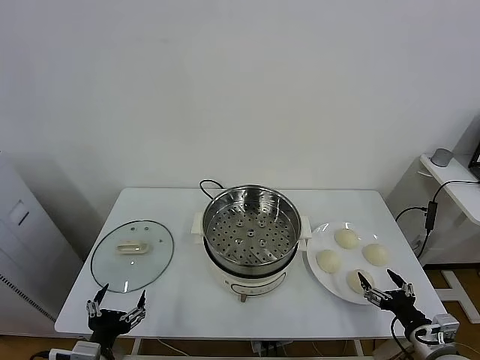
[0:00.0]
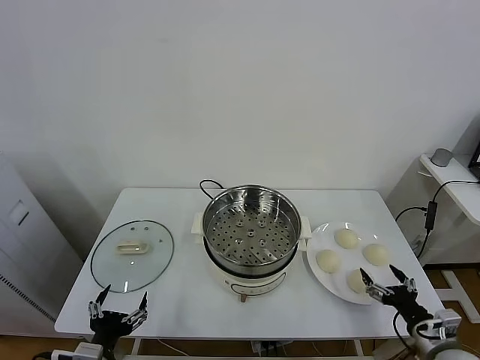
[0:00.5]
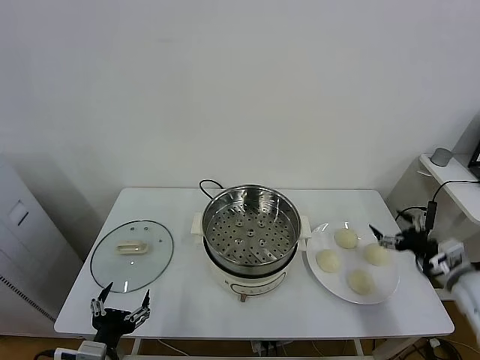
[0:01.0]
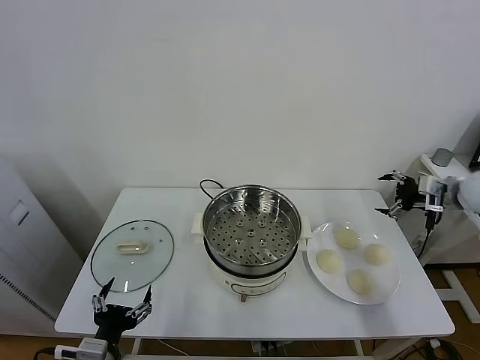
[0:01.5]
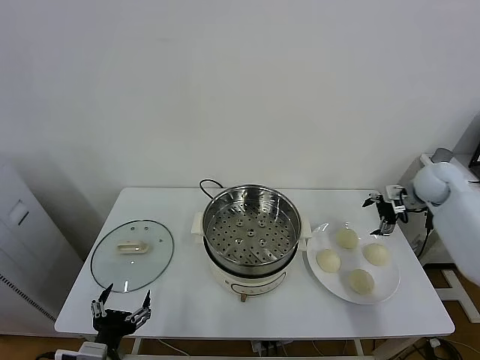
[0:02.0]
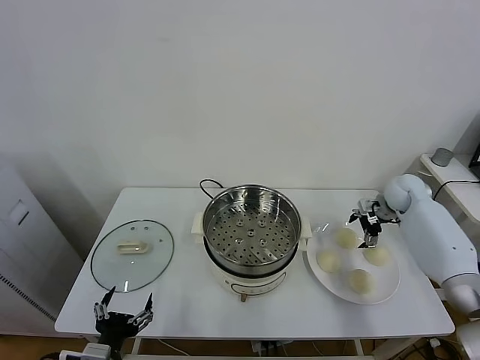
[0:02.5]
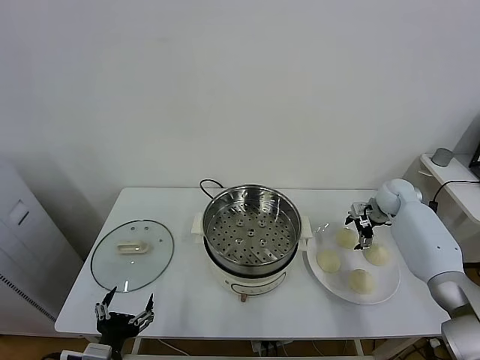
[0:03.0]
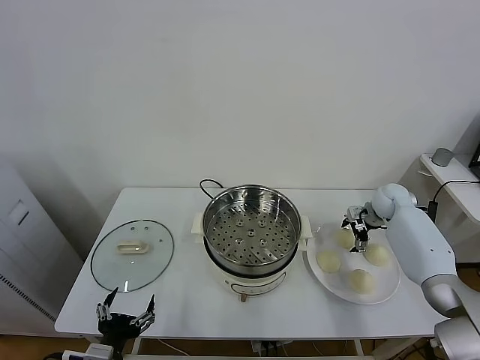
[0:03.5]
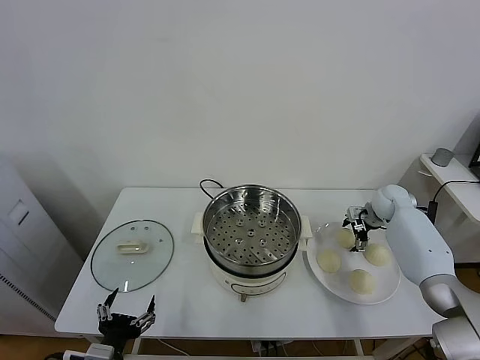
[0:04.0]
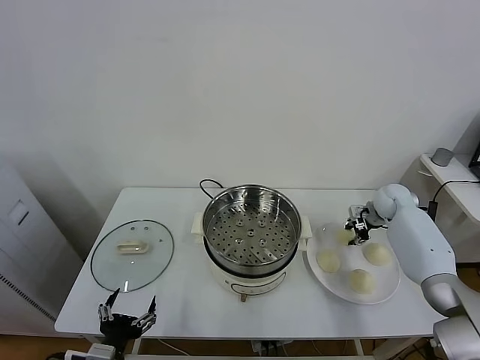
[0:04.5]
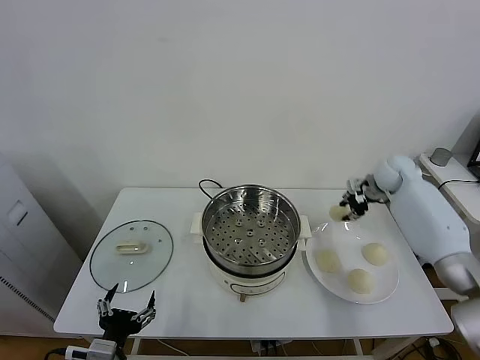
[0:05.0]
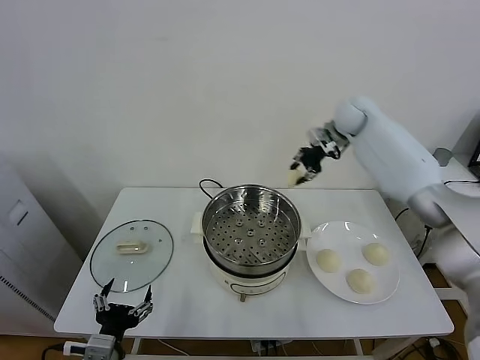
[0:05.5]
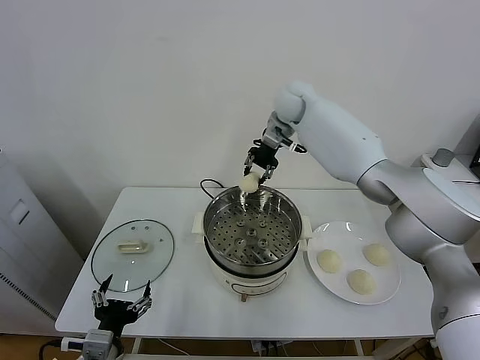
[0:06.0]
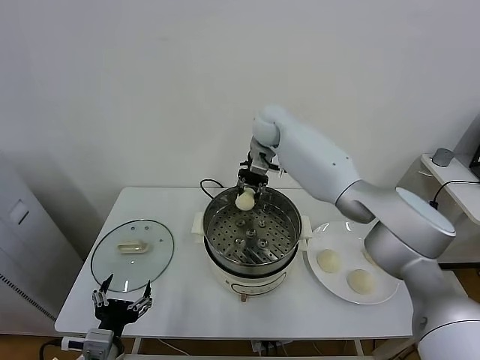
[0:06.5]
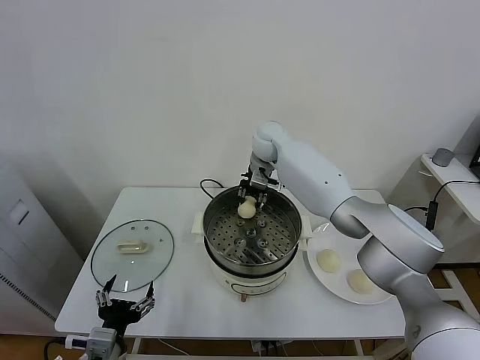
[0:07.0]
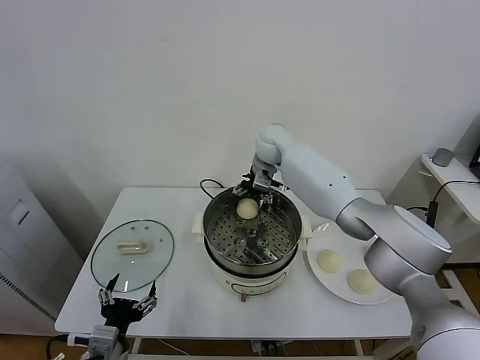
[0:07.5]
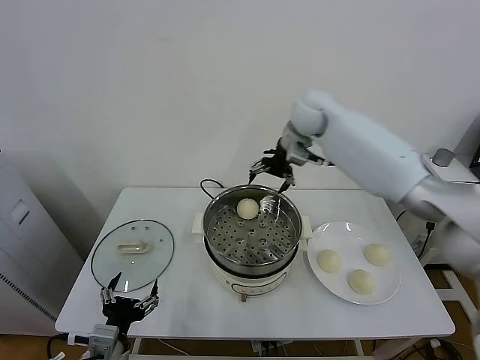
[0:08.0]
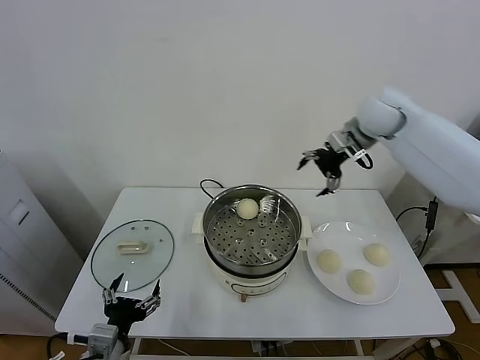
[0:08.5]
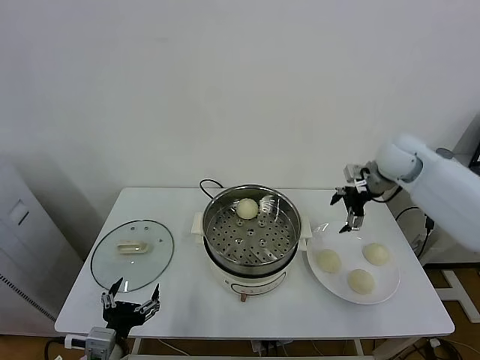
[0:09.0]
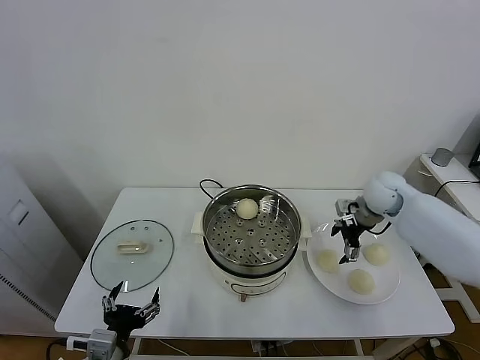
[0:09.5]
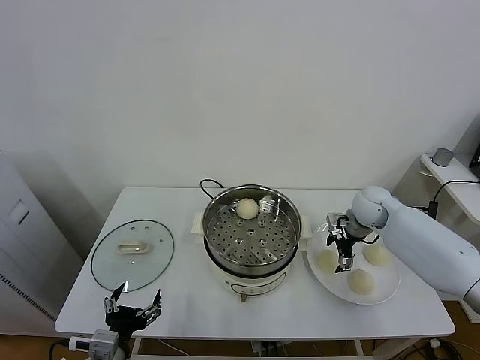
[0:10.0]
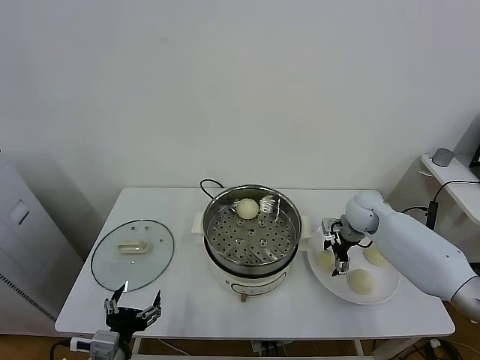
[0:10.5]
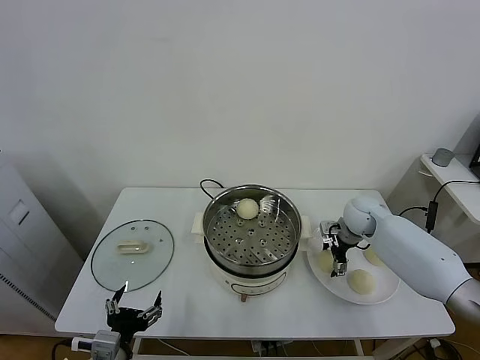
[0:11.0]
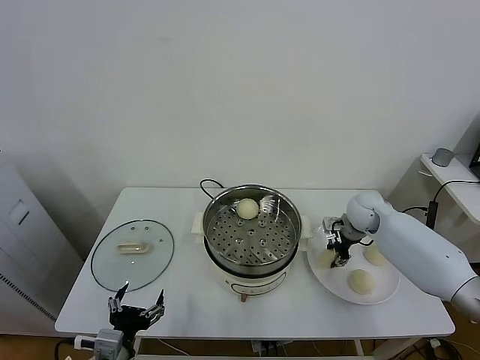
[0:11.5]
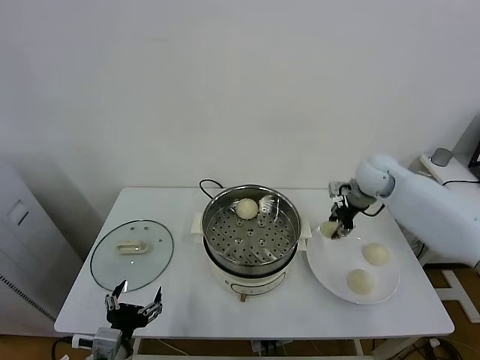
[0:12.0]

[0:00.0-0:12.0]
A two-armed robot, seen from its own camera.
Task of the whole recording: take steamed baozi put them in steamer.
Step, 0.0 to 4.5 s: Grasp the baozi in the plate with right gripper.
Step, 5.0 to 7.5 s: Place the baozi on the steamer with right gripper.
Step, 8.0 to 11.0 s: Grasp the baozi in the plate with right gripper.
2.0 to 4.0 s: The right gripper shifts about 10 cm downward.
4.0 to 6.0 s: The right gripper moves to the left and upward, some 40 cm, and closes.
6.0 to 8.0 s: The right gripper shifts roughly 10 cm to the right and backward, travels downward and back again, some 10 cm each way, and opens up.
8.0 to 10.0 s: The right gripper travels downward and to the right by roughly 30 cm.
10.0 to 12.0 s: The right gripper is displaced upward by approximately 10 cm, and closes up.

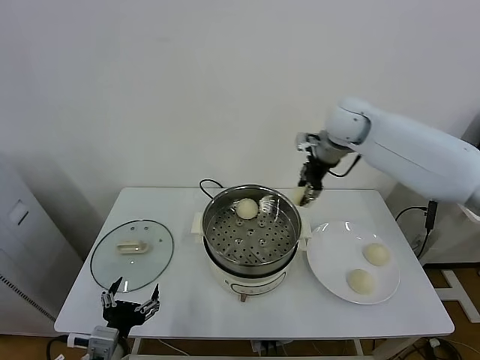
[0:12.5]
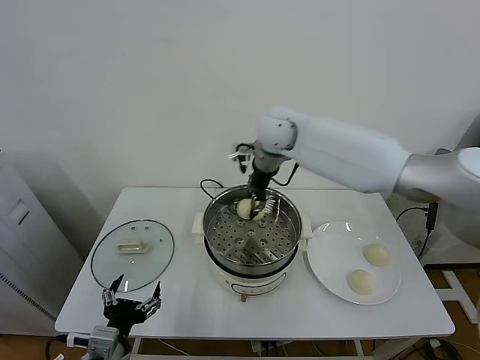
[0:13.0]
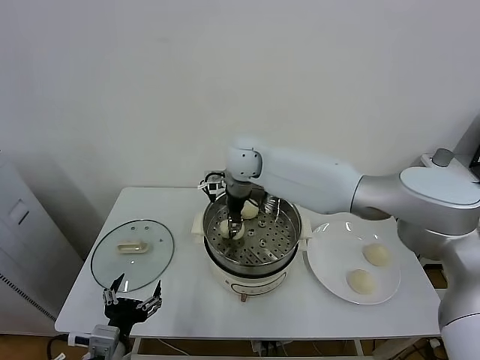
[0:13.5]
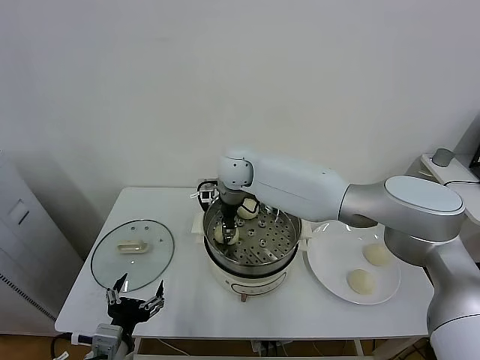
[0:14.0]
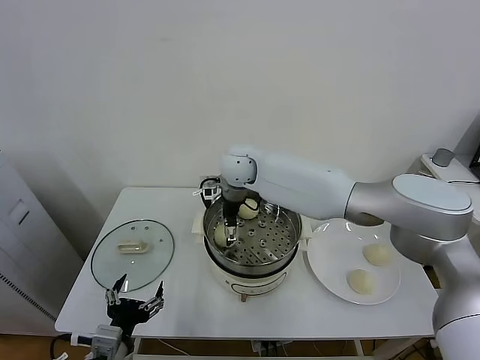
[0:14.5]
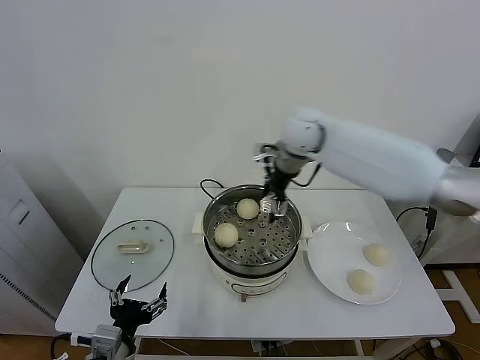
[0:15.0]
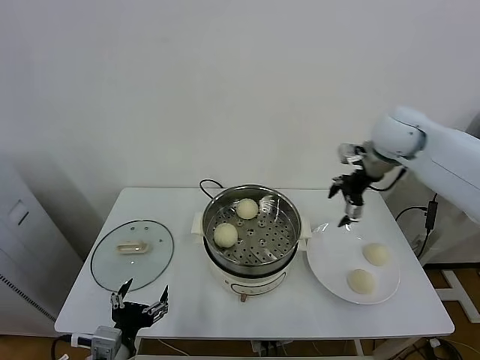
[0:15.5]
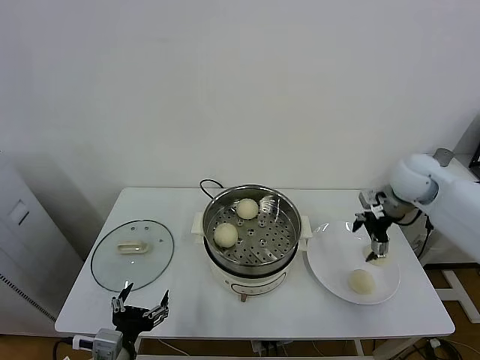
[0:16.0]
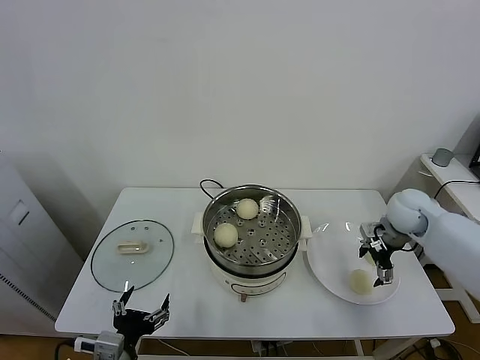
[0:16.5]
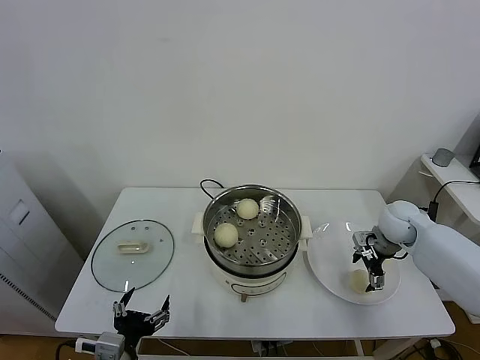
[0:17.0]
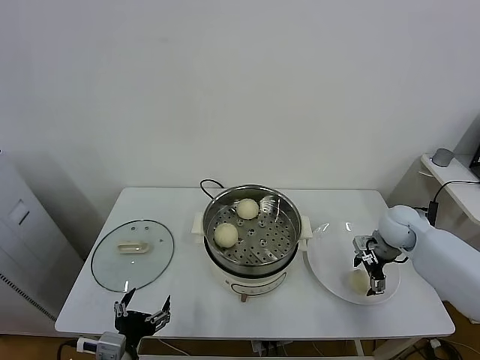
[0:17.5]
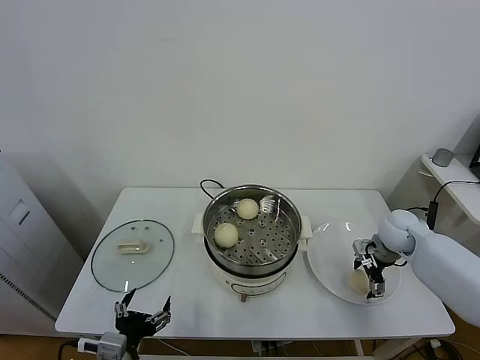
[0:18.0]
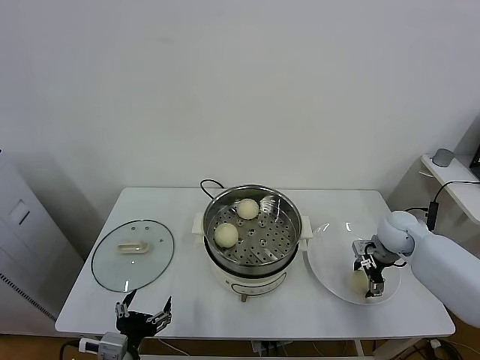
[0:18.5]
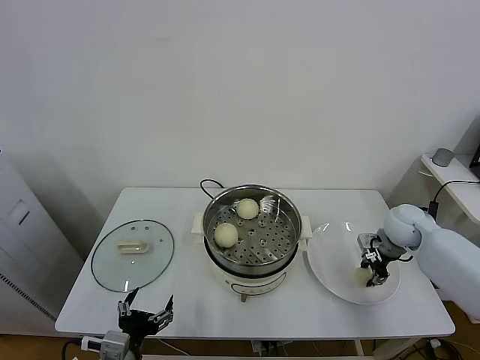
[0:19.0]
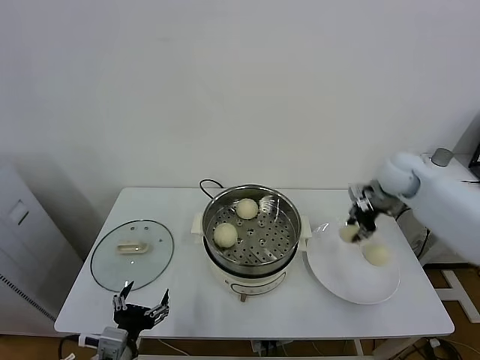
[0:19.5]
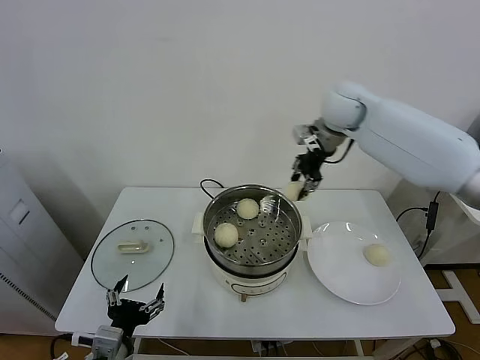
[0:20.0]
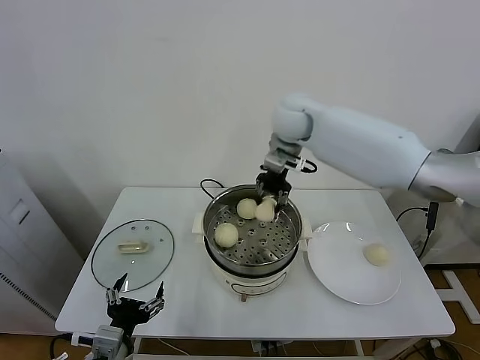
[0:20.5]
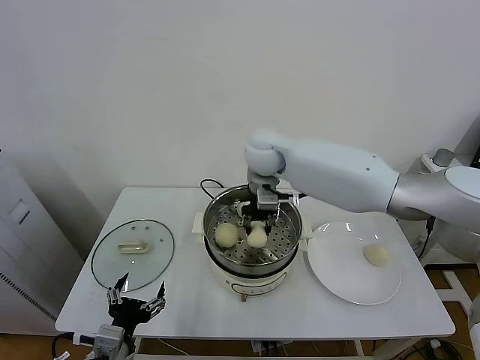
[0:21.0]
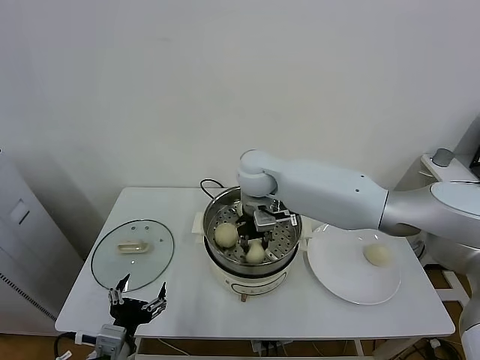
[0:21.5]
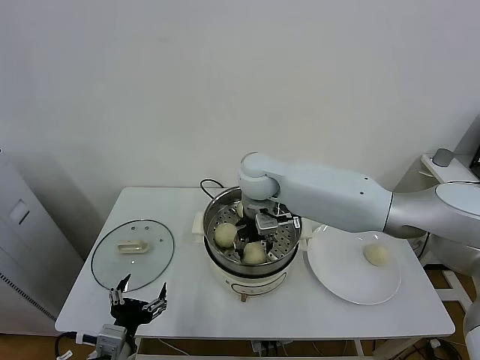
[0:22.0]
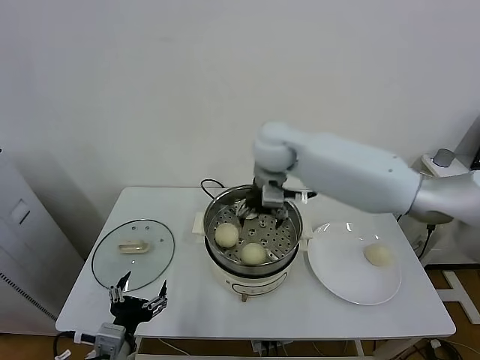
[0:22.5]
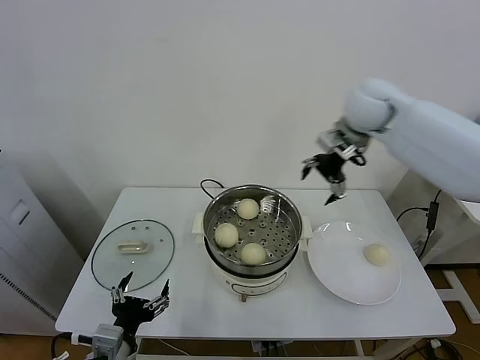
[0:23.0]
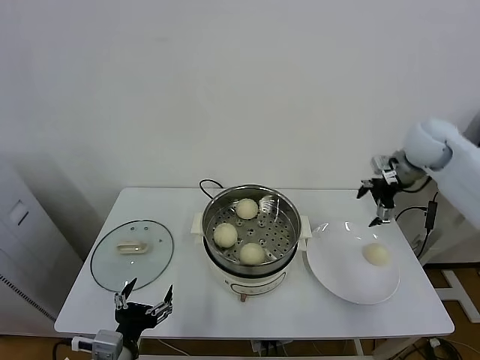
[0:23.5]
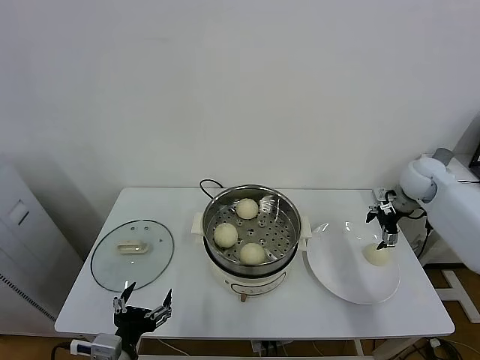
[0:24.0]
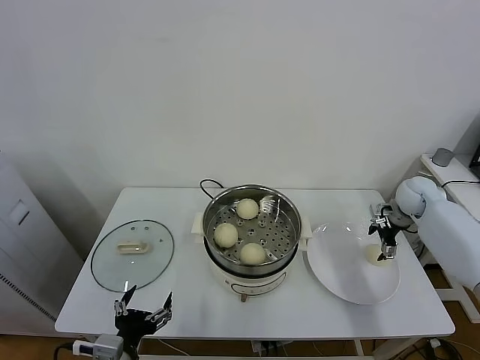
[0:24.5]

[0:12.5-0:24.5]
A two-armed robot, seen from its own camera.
Task of the whole recording: take steamed baozi put them in steamer.
Step, 12.5 to 14.5 s: Place the baozi on the steamer with right gripper.
Step, 15.0 to 18.5 s: Grasp the baozi in the plate with right gripper.
Step, 19.0 to 22.0 s: Place the baozi on the steamer with right gripper.
12.5 to 14.5 s: The right gripper travels to the left and downward by about 20 cm, and opens up.
14.5 to 16.5 s: The right gripper heads to the right, covering some 40 cm.
16.5 to 18.5 s: The right gripper is displaced downward by about 5 cm.
18.5 to 20.5 s: The right gripper is displaced to the left and upward by some 40 cm, and closes up.
20.5 to 22.5 s: The right gripper moves backward, approximately 5 cm, travels downward and back again, roughly 10 cm each way, and opens.
22.5 to 24.5 s: The right gripper travels to the right and downward by approximately 40 cm.

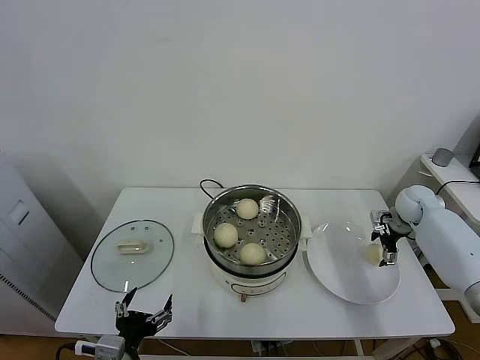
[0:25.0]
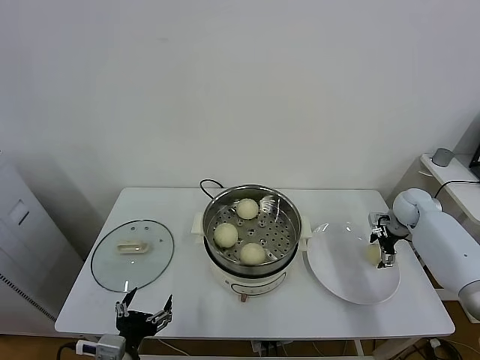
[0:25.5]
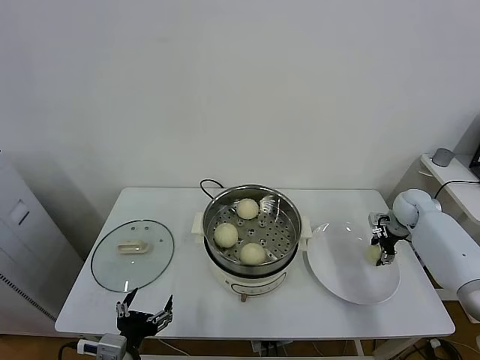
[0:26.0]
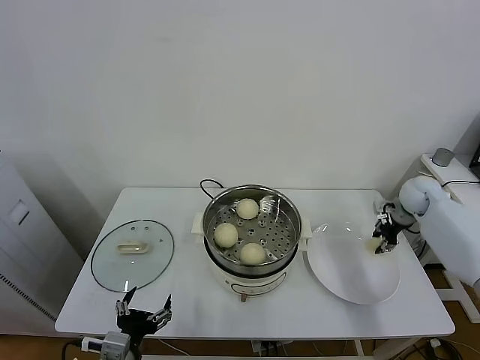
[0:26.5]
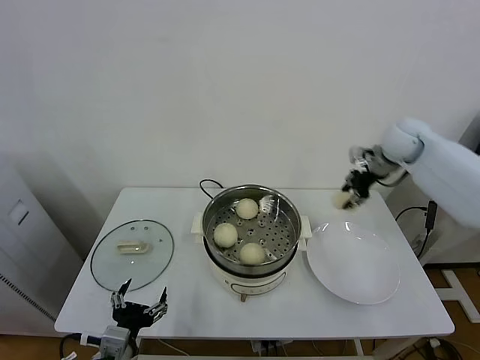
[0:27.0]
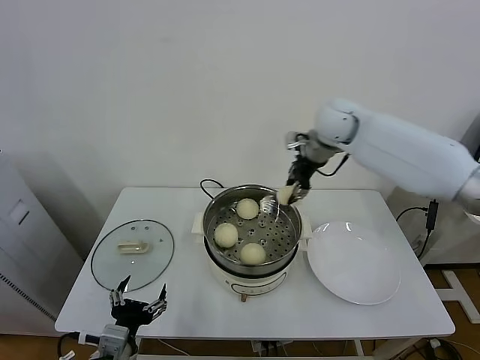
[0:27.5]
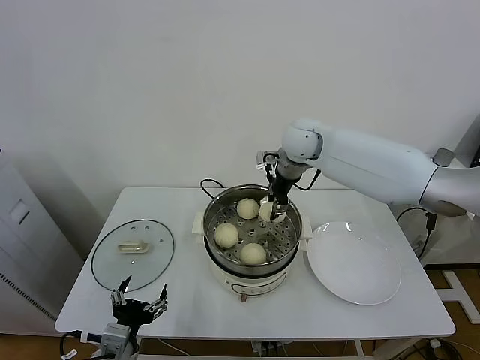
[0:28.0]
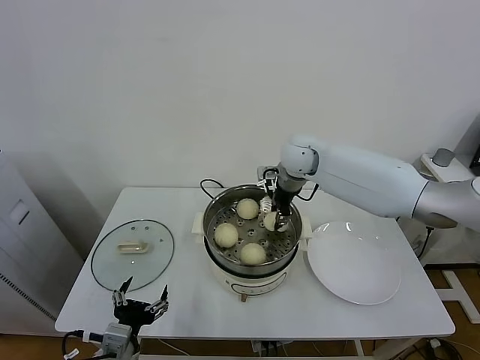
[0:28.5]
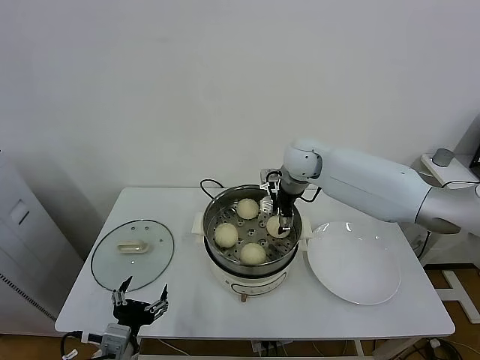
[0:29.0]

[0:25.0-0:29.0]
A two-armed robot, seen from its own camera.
Task of the whole recording: take steamed baozi put them in steamer.
25.0 to 27.0 s: The right gripper shifts roughly 20 cm upward and to the left, and closes.
27.0 to 29.0 s: The right gripper moves to the left, some 20 cm, and opens.
